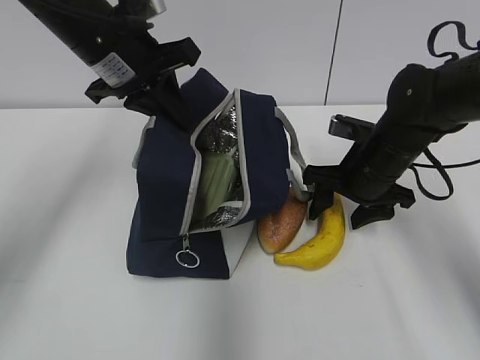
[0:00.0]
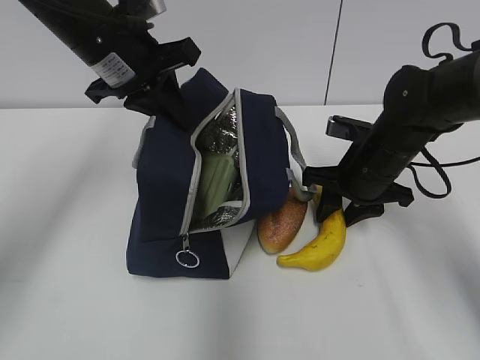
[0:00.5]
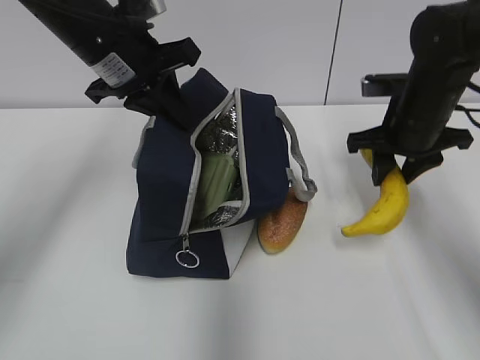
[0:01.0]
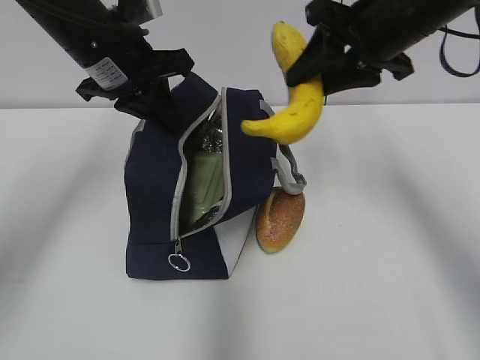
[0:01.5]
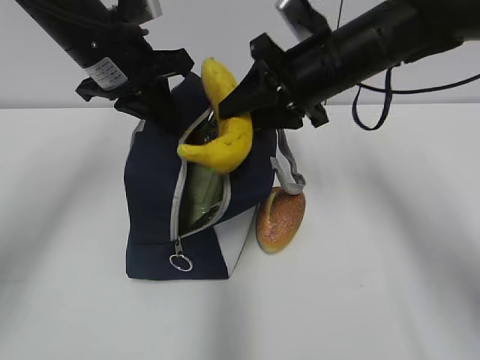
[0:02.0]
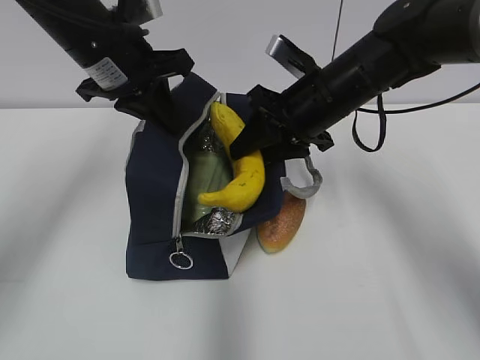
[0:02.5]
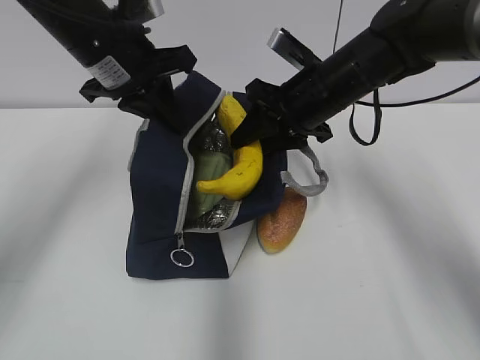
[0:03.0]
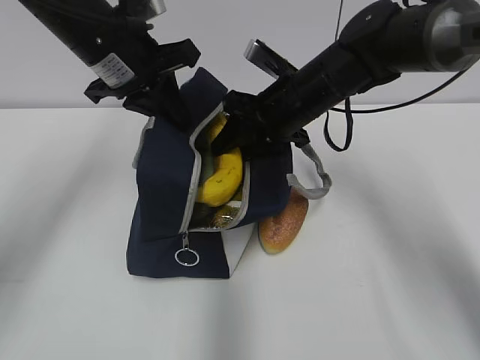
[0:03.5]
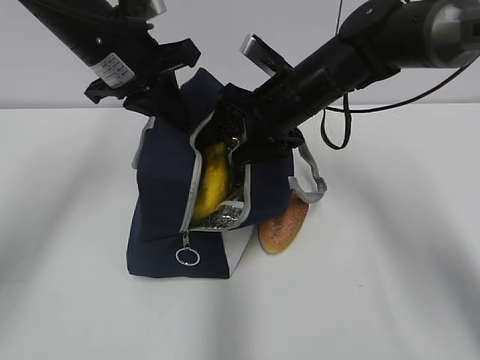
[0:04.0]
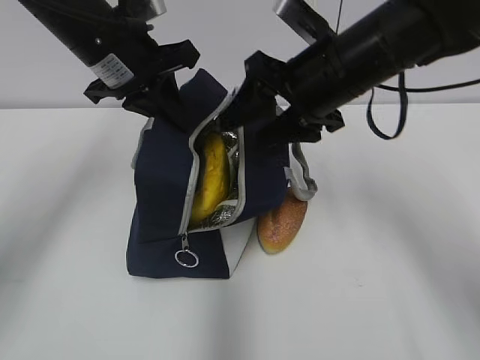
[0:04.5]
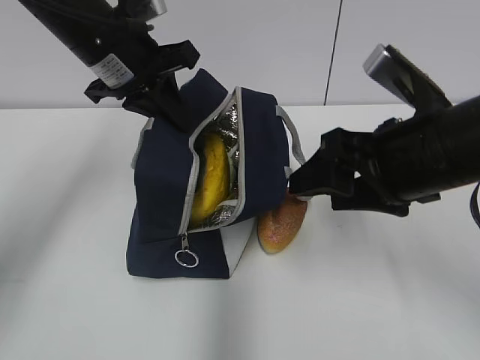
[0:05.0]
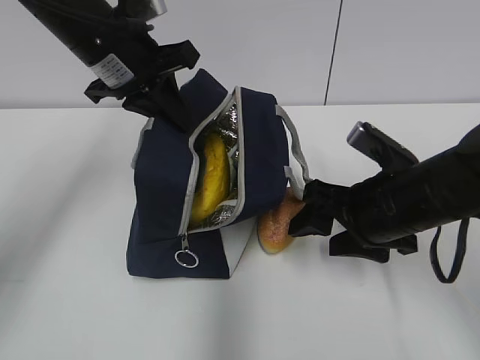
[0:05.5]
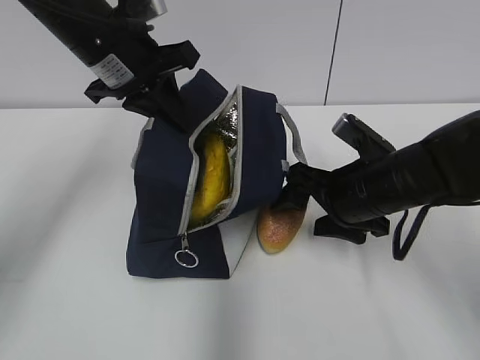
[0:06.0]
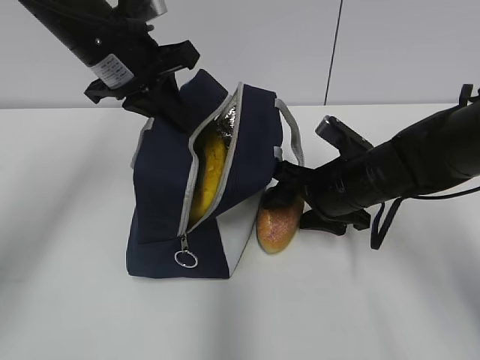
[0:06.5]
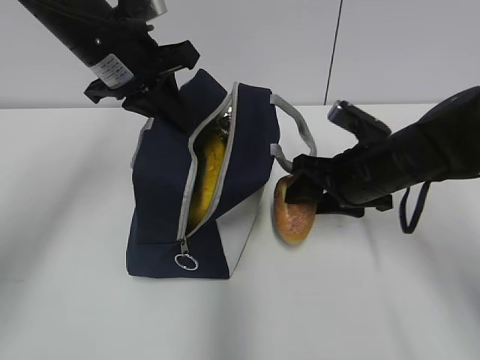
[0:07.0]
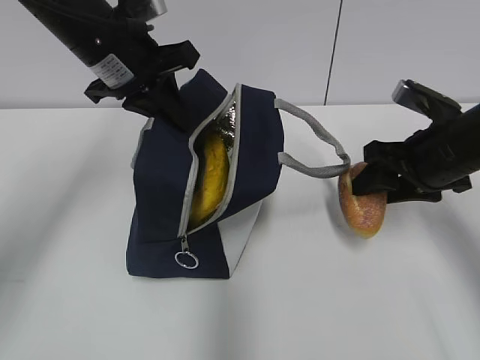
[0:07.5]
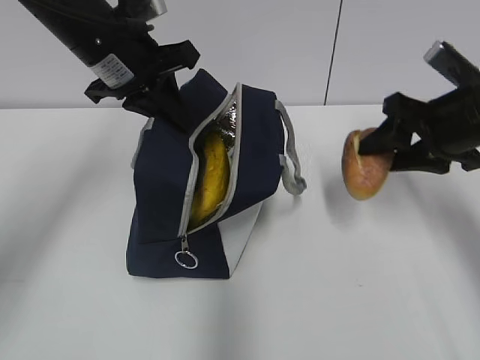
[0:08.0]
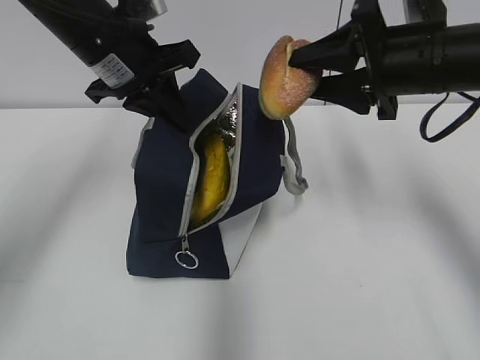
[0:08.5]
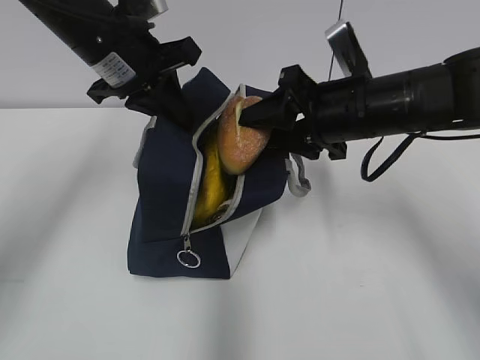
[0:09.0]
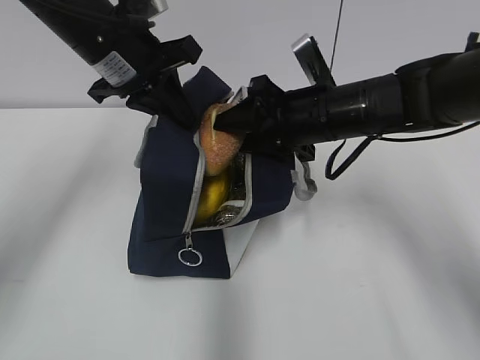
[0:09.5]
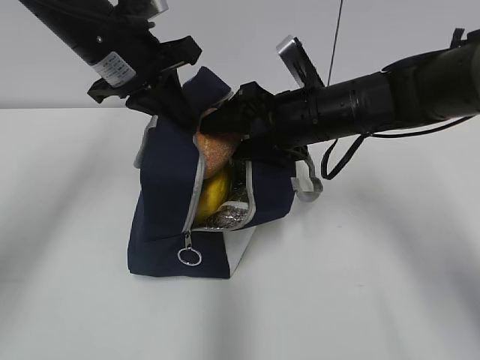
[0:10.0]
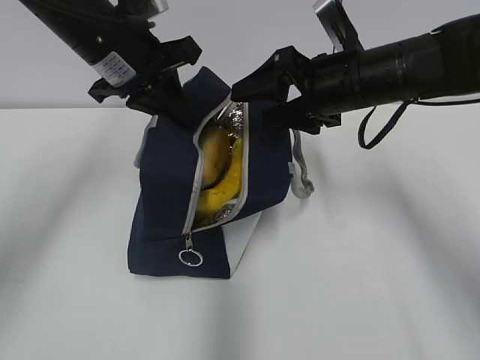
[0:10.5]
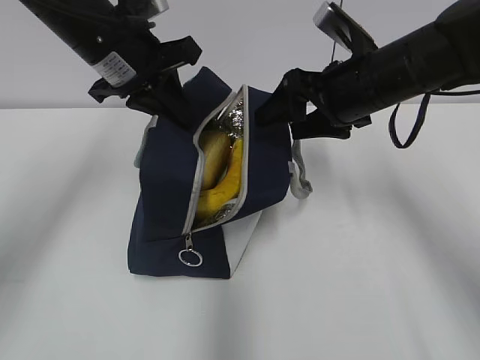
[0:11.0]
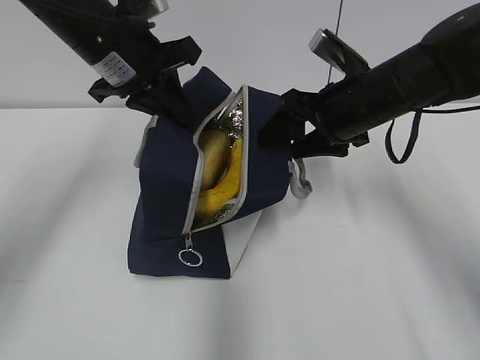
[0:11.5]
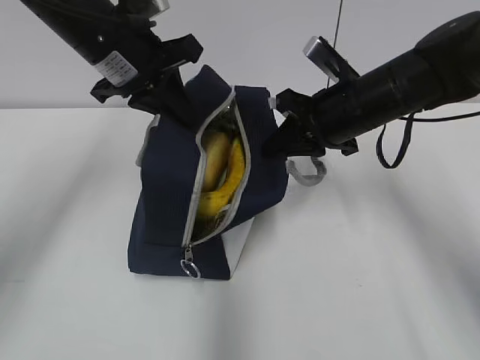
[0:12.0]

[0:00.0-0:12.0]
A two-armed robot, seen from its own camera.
0:00.0 to 0:02.0: The right gripper heads upward and to the left, covering about 15 cm, and closes.
0:02.0 to 0:04.0: The right gripper shifts about 5 cm downward, and opens.
0:04.0 to 0:06.0: The right gripper shifts about 15 cm backward, downward and to the right.
0:06.0 to 0:08.0: The right gripper travels to the right and upward by some 10 cm, and closes up.
0:08.0 to 0:10.0: The right gripper shifts roughly 15 cm to the left, and opens.
0:10.0 to 0:12.0: The right gripper closes up.

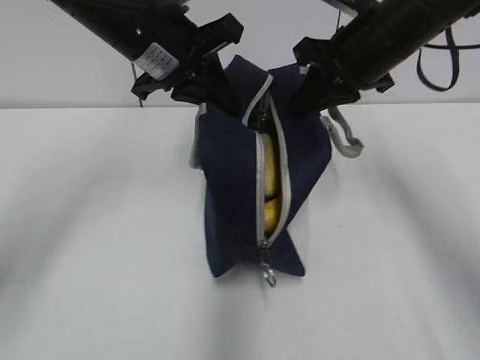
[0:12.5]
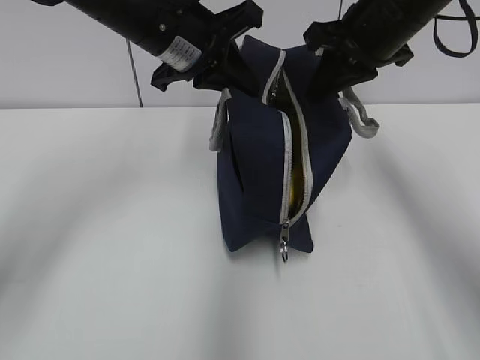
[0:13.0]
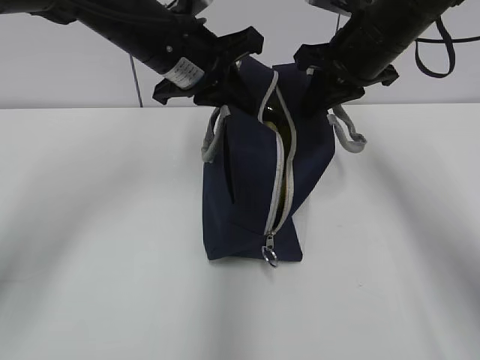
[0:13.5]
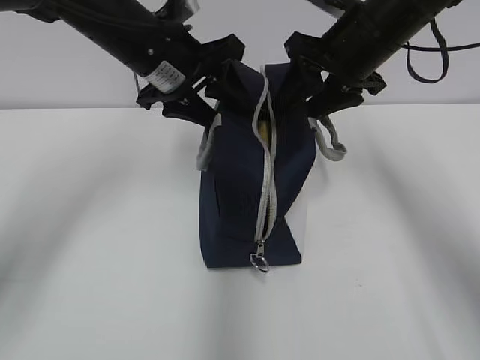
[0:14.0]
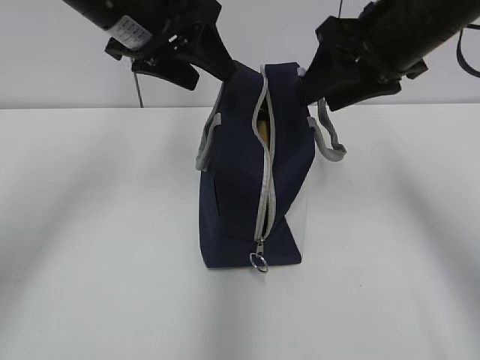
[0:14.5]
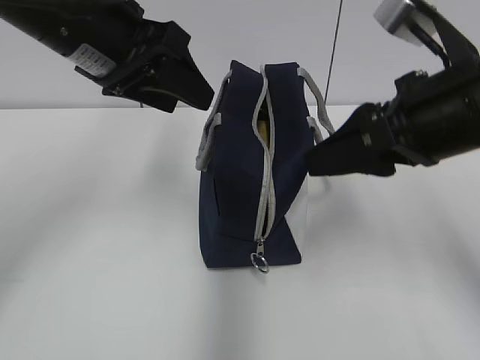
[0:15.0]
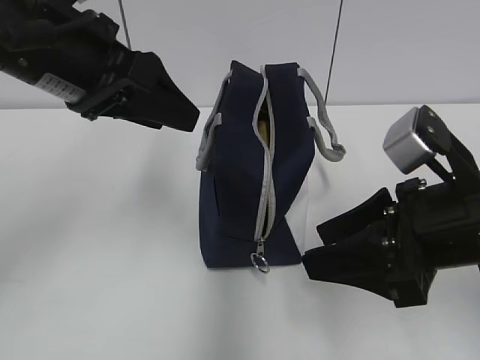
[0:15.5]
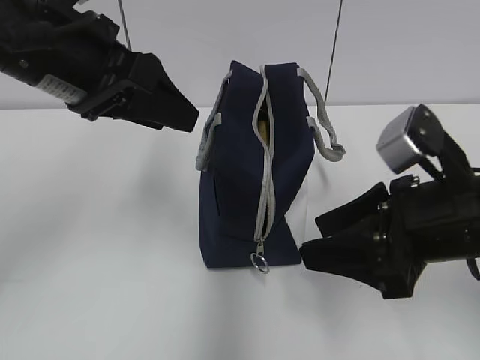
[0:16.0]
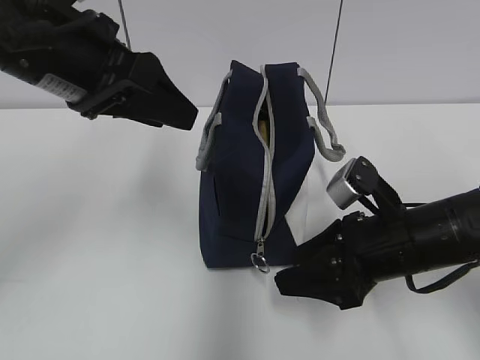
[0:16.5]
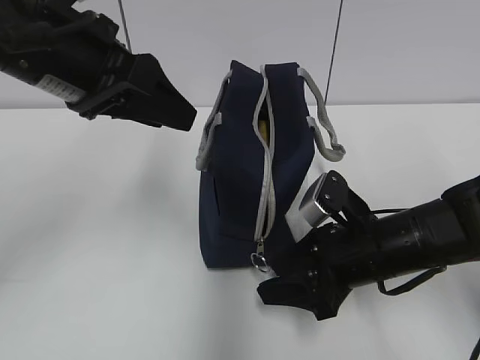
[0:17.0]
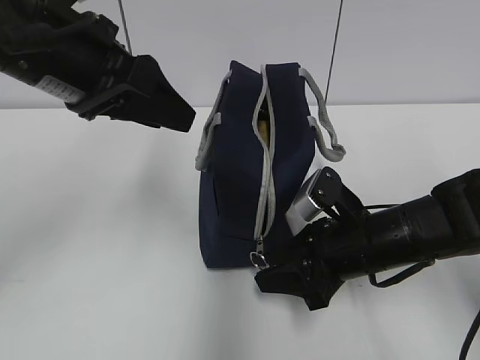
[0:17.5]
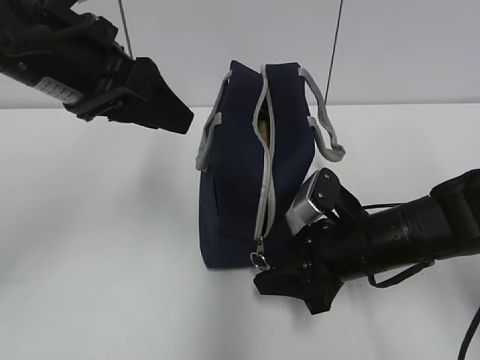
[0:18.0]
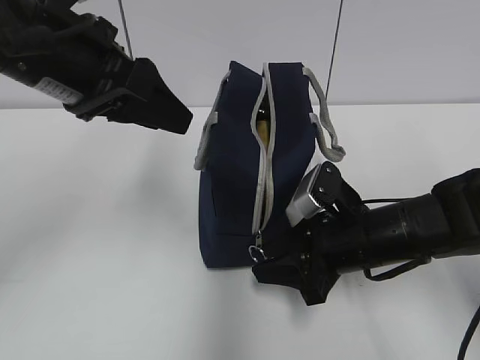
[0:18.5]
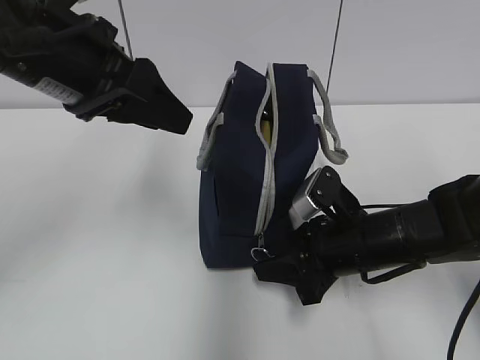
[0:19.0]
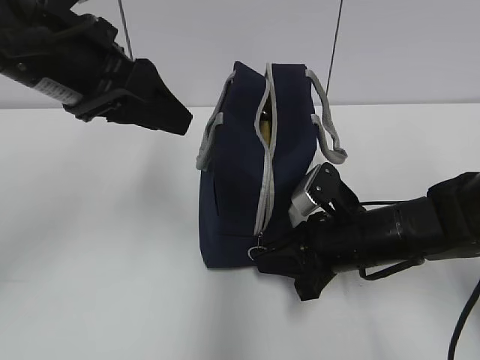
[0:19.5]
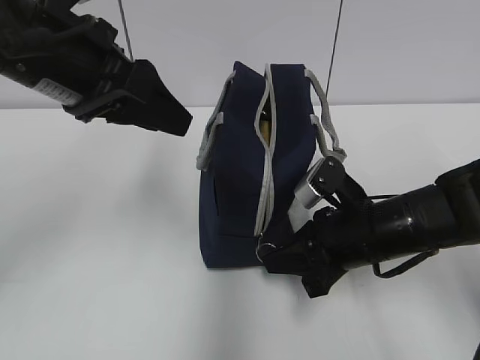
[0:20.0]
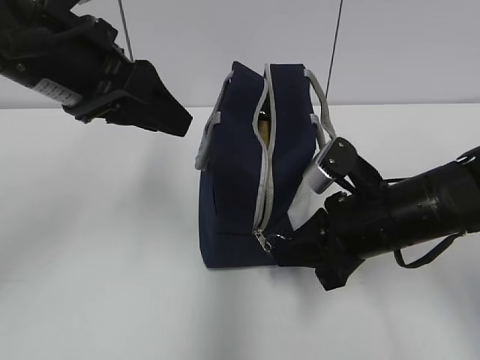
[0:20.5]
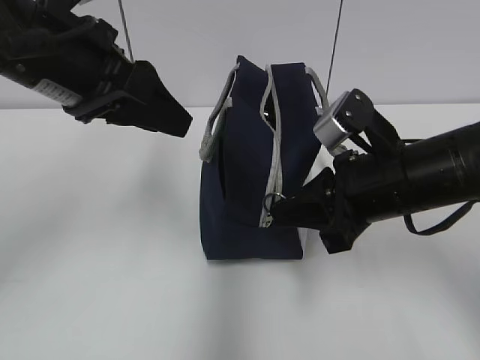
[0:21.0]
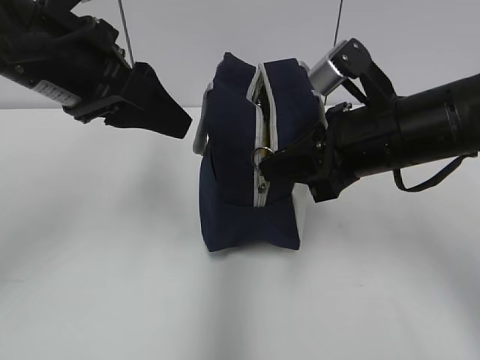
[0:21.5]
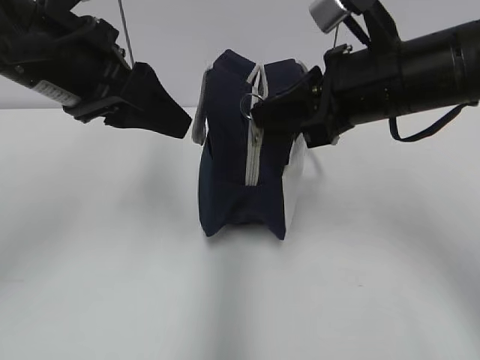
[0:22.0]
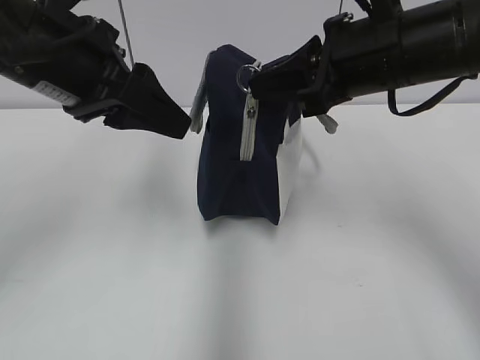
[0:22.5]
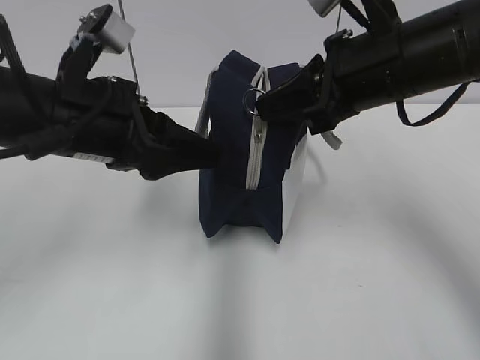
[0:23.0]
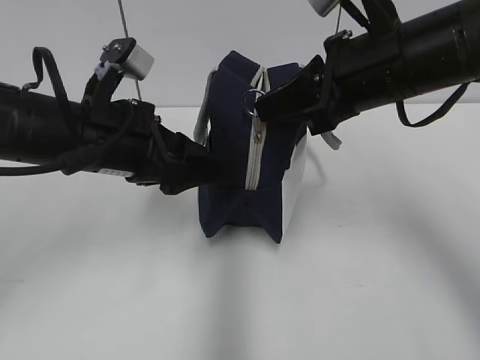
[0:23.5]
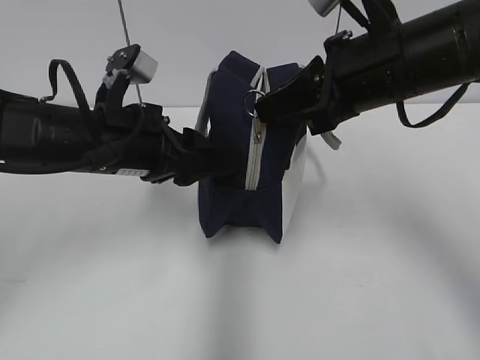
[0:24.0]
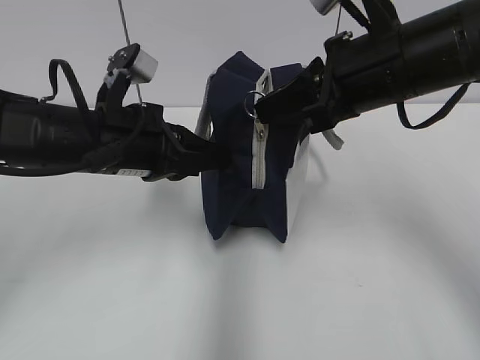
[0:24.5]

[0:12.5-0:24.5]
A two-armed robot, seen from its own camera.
0:12.5 to 0:14.5: The left gripper opens up, while the right gripper opens.
0:14.5 to 0:16.5: The right gripper shifts roughly 20 cm downward and backward, while the left gripper shifts roughly 10 cm backward.
0:16.5 to 0:18.5: There are only small adjustments of the grippers.
0:18.5 to 0:20.5: The right gripper closes.
0:20.5 to 0:22.5: The right gripper is displaced upward by about 15 cm.
0:22.5 to 0:24.5: The left gripper goes approximately 10 cm downward, and closes.

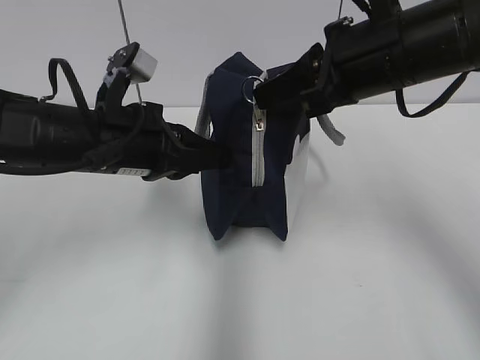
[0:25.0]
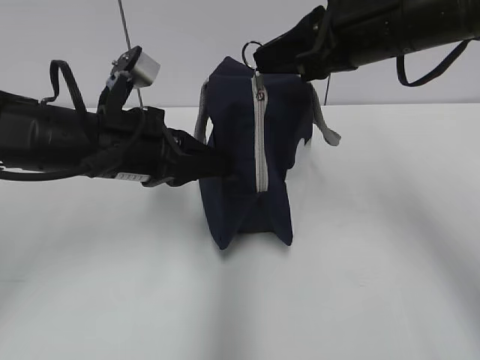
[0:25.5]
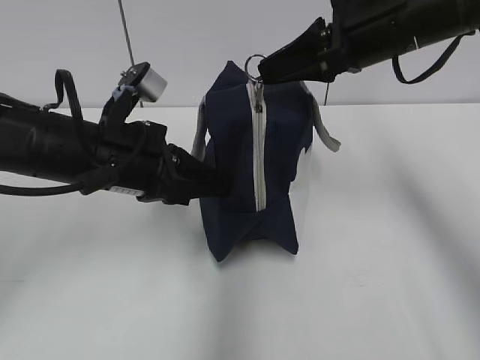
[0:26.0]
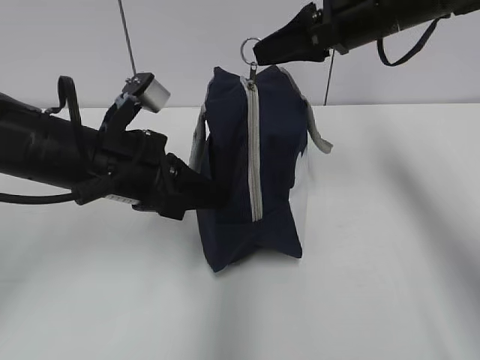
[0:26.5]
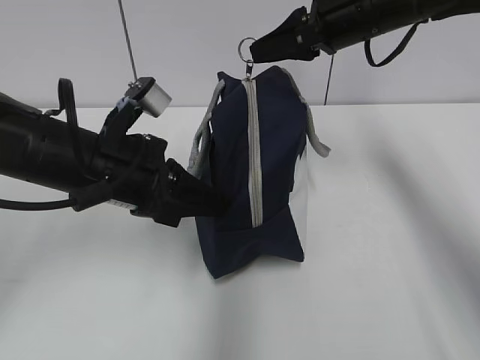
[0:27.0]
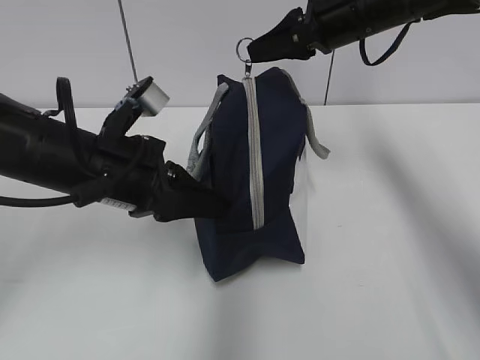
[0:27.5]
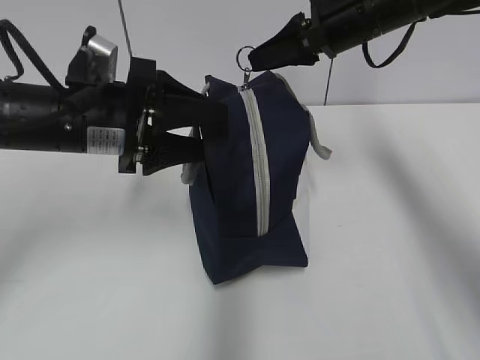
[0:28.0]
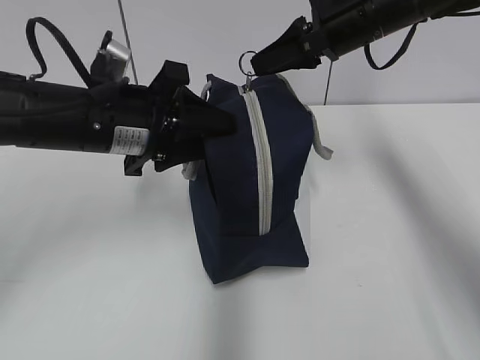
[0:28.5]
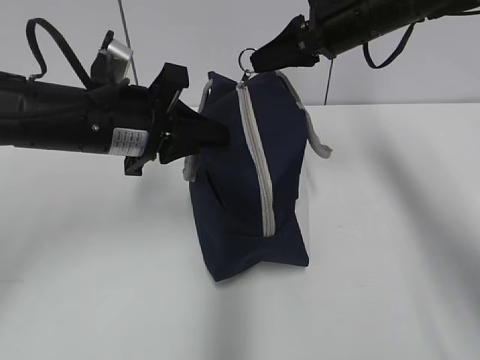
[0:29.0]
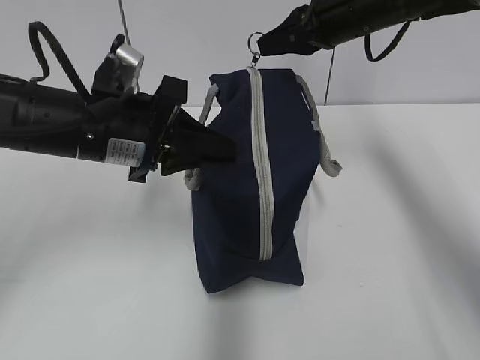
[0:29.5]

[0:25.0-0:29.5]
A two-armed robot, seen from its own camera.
0:25.0 to 0:27.0: The right gripper goes about 10 cm forward.
0:27.0 to 0:29.5: The left gripper opens, then closes once more.
